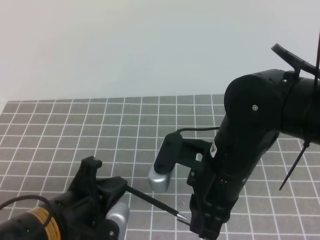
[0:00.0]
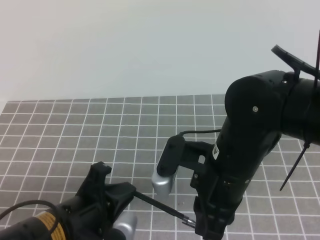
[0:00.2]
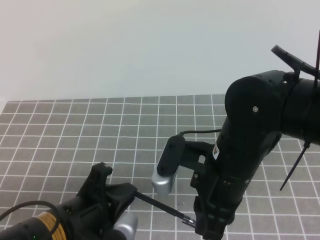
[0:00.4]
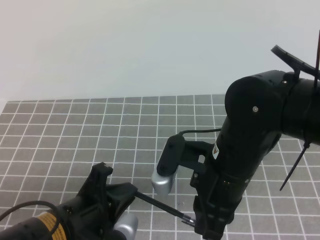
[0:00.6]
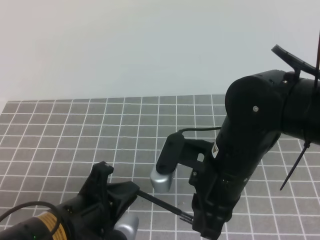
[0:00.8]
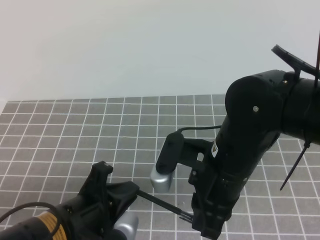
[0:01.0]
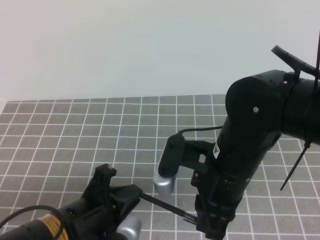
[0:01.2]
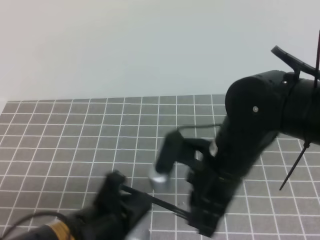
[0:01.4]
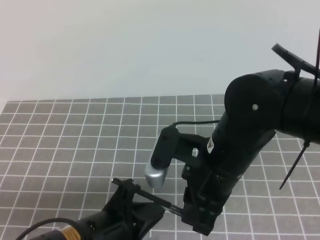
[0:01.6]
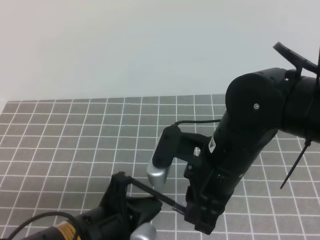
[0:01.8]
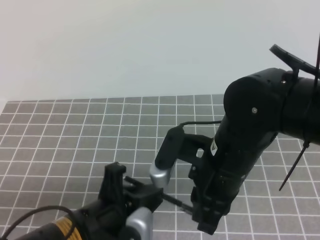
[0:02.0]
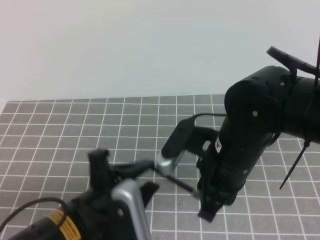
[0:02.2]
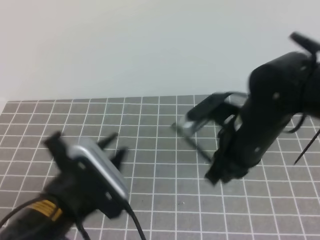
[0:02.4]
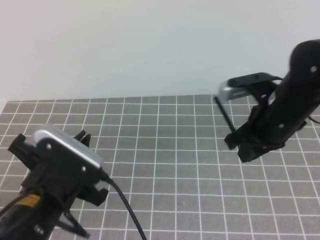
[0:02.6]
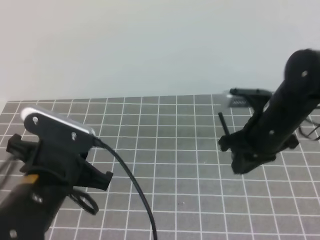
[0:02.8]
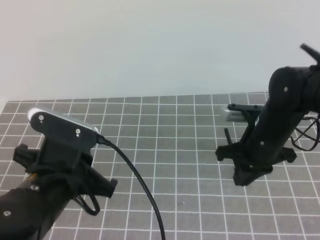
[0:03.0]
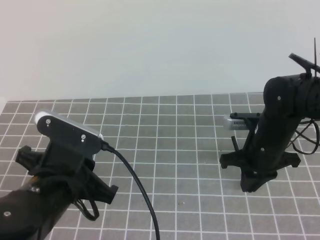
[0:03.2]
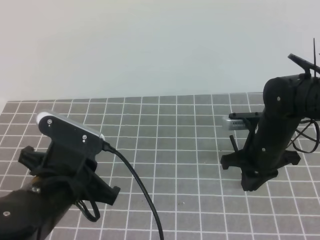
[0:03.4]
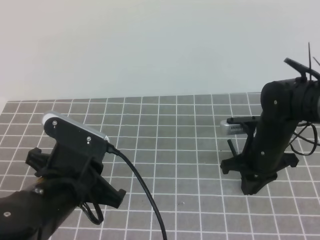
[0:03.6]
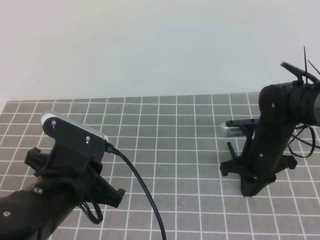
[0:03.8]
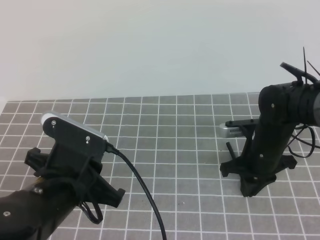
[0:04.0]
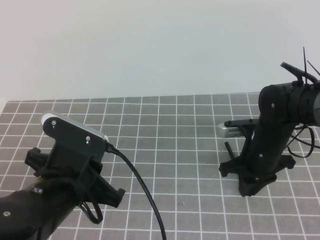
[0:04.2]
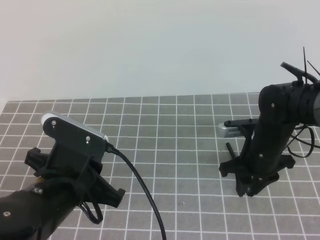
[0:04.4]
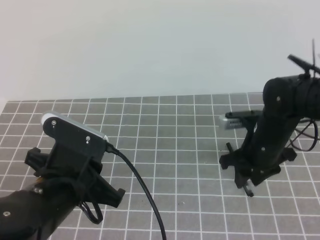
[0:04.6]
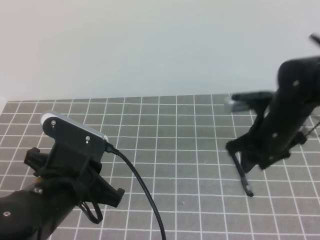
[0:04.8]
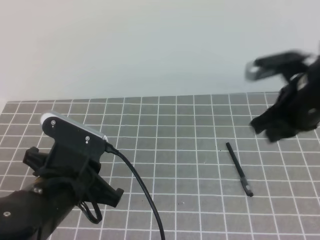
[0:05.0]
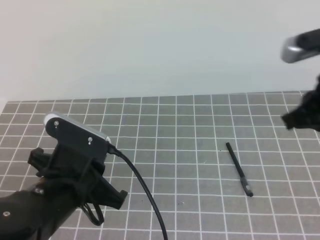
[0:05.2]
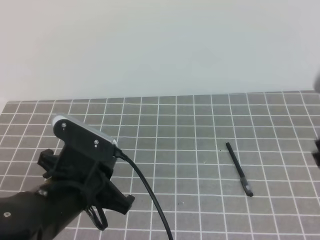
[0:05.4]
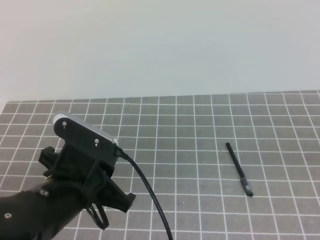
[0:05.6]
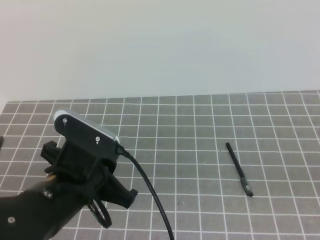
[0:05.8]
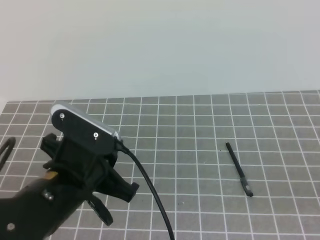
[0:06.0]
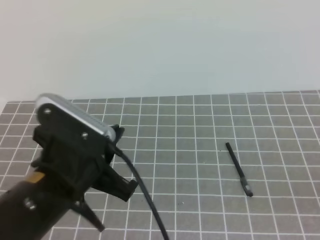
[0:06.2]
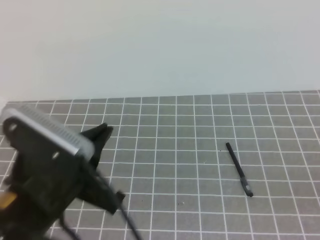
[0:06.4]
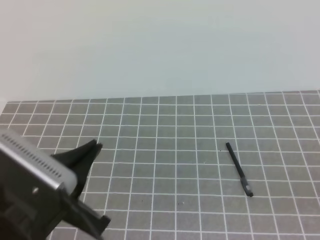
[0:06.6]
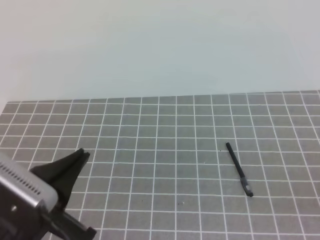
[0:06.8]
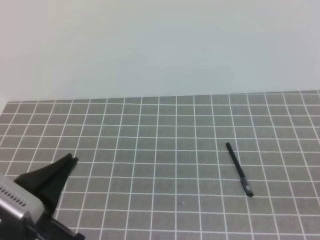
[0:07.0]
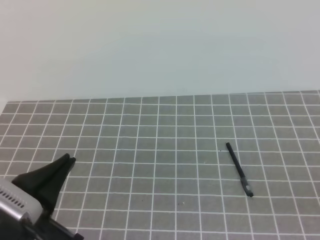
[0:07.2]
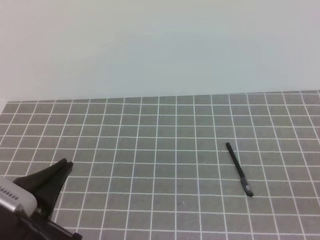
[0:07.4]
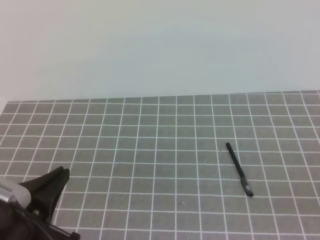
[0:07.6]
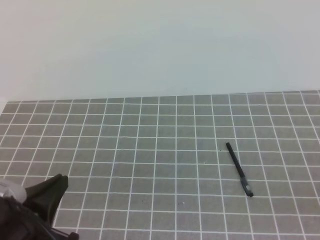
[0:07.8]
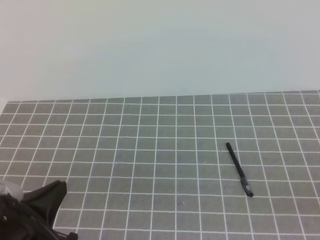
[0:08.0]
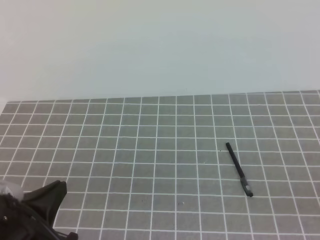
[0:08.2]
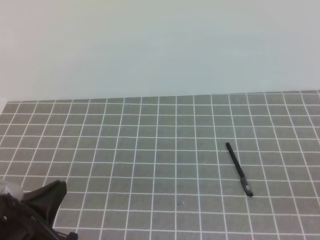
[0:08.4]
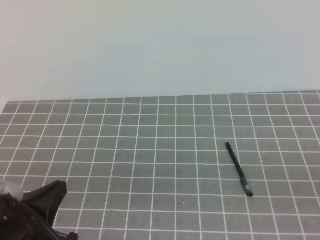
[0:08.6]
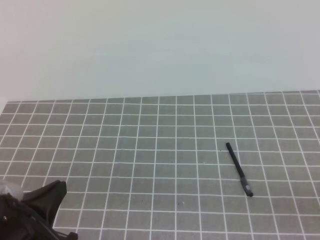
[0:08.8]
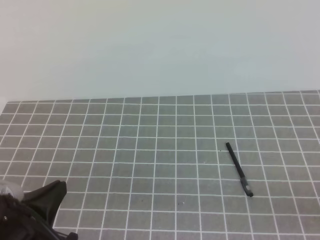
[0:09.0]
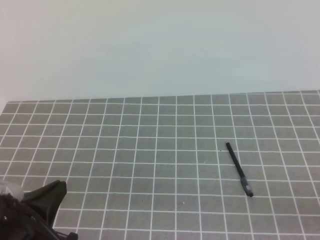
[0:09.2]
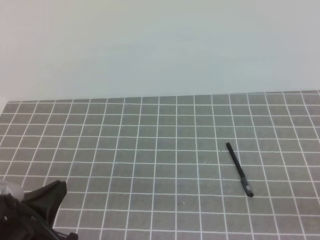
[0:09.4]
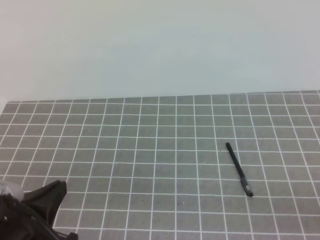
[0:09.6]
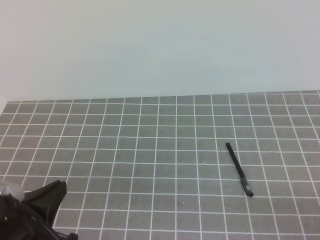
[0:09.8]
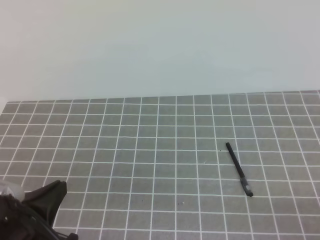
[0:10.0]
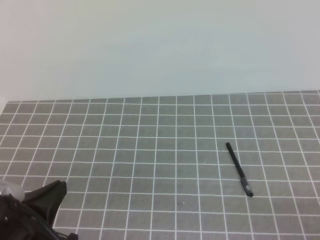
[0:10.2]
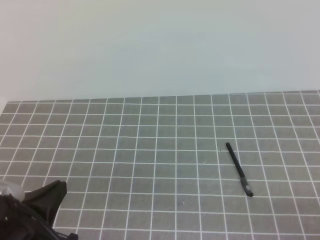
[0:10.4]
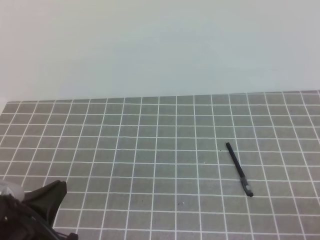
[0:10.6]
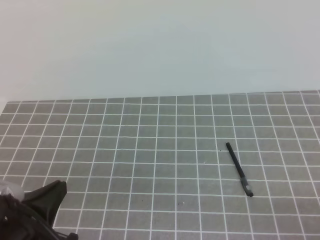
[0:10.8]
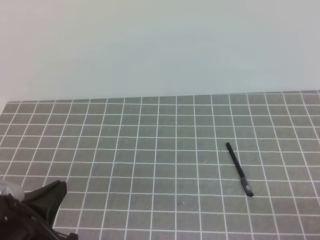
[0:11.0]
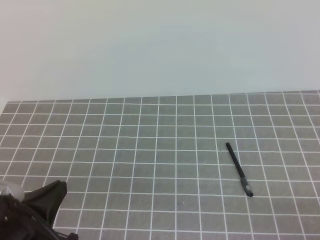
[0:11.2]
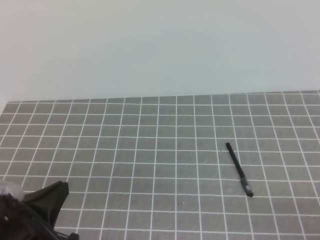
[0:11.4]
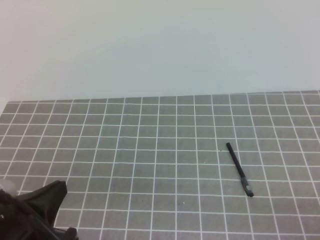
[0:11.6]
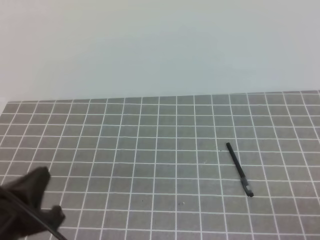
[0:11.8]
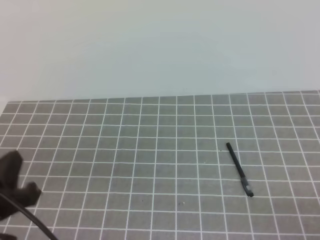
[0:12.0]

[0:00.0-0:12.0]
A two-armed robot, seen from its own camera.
Task of the whole recording: on the grey tablecloth, hold the pen cap in one hand and the pen in the other, then cover the pen cap.
0:00.0 to 0:01.6: There are only small adjustments of the grippers.
0:01.6 to 0:03.0: The left gripper ends up about 5 cm from where it was, and opens and closes again. Meanwhile the right gripper heads forward, to the right and downward, covering about 15 cm.
0:03.0 to 0:04.4: The right gripper opens.
0:04.4 to 0:06.0: The right gripper heads backward, upward and to the right, covering roughly 30 cm, and closes.
0:06.0 to 0:07.6: The left gripper shifts approximately 10 cm backward and to the left.

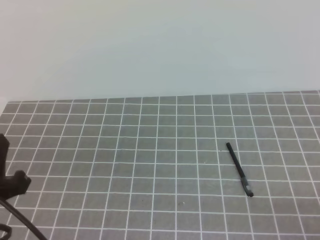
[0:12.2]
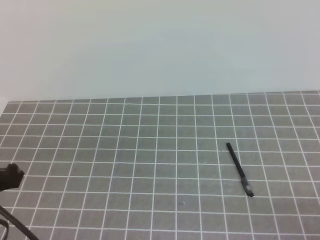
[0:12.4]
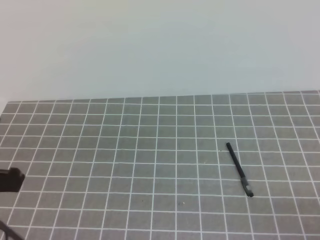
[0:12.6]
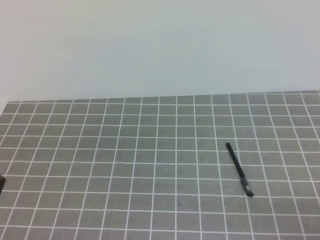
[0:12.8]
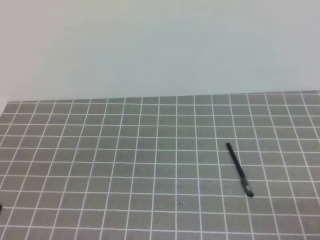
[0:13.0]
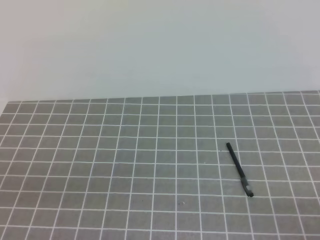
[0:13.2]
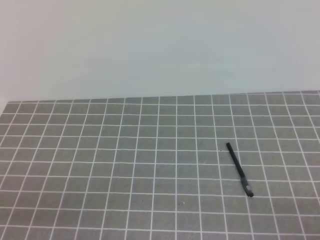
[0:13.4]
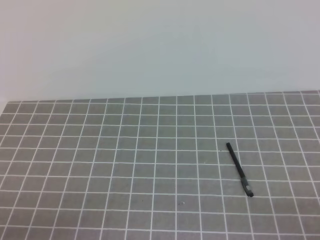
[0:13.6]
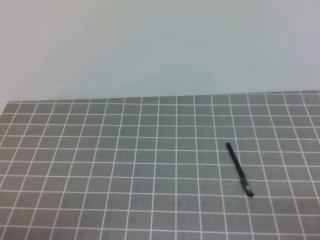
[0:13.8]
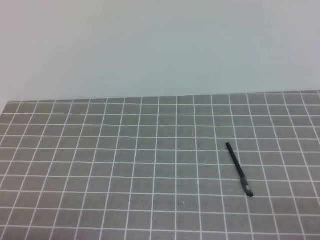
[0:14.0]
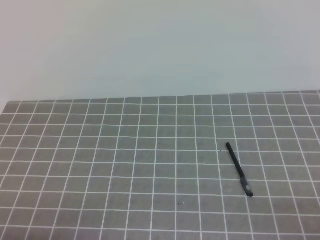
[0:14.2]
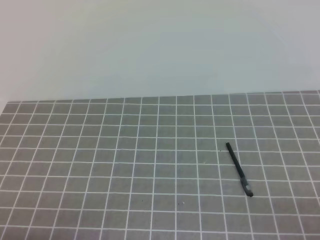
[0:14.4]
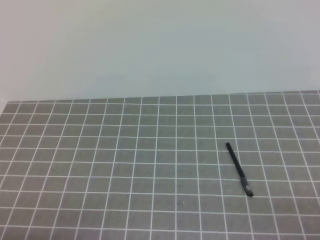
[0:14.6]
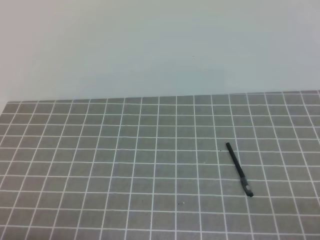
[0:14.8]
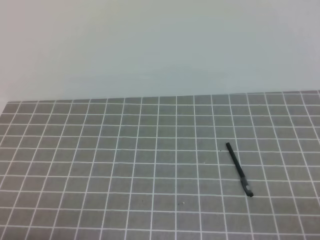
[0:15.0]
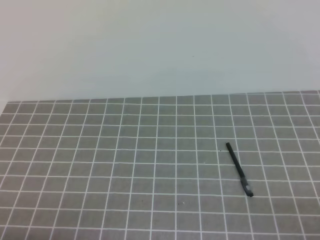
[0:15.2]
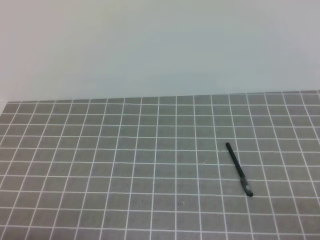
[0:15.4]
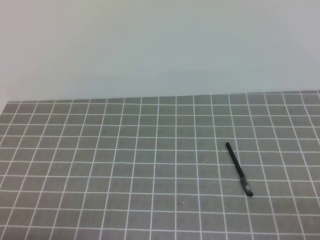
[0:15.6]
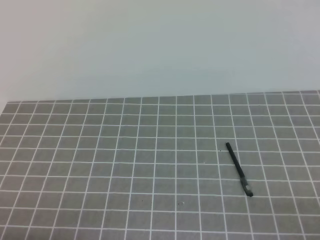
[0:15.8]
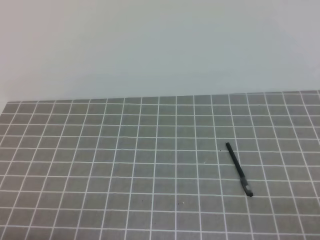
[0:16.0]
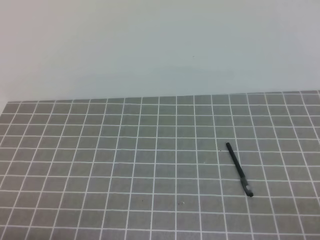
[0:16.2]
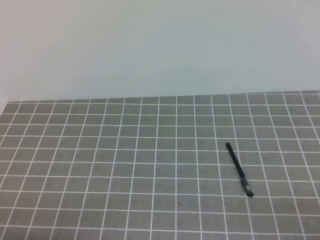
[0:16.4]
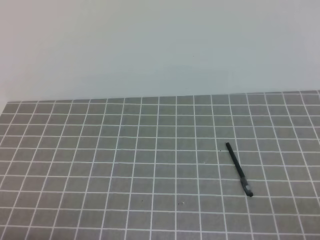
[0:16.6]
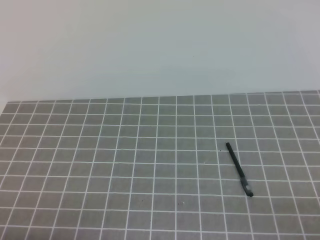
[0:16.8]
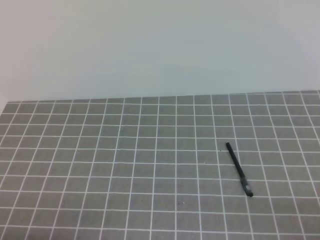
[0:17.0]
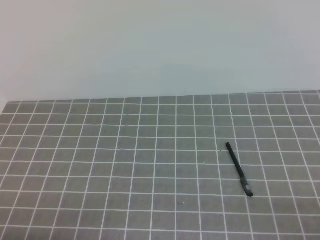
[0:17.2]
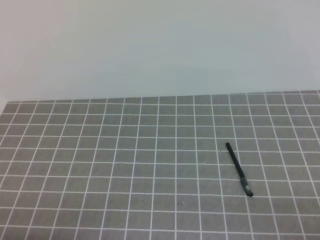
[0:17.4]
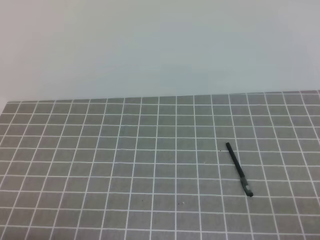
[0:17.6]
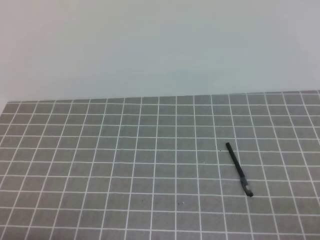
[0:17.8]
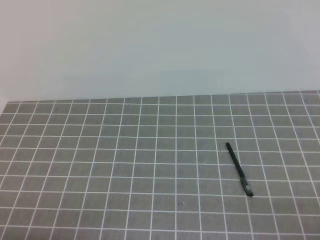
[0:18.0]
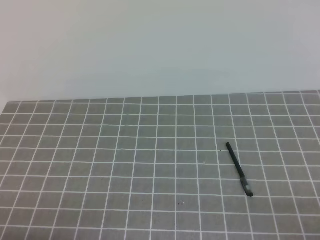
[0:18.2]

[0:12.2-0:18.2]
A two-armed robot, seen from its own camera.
Task of the whole recording: on the grey tablecloth, hold the pen cap in one hand and the pen in the other, then cover the pen cap.
Step, 0:12.2 to 0:18.2: Put the cap on the pen.
0:12.2 to 0:13.8: The left gripper heads downward and backward, covering roughly 10 cm.
0:15.2 to 0:18.2: Both grippers stay about where they are.
